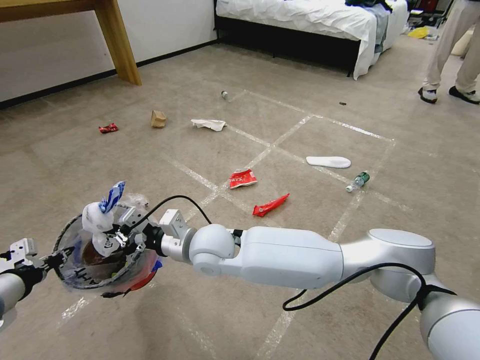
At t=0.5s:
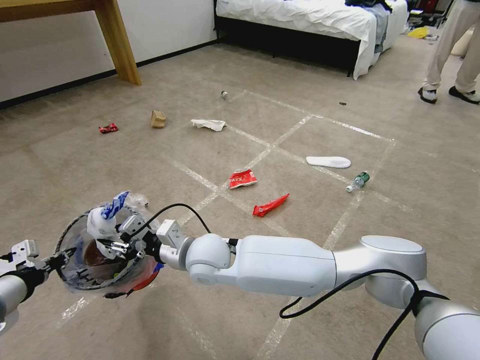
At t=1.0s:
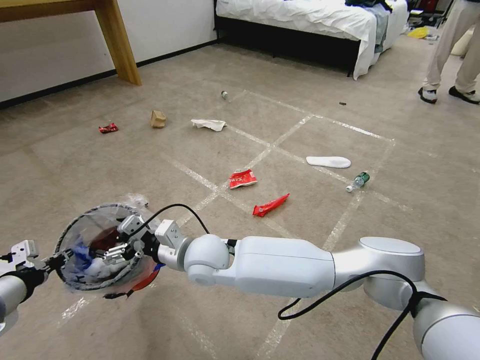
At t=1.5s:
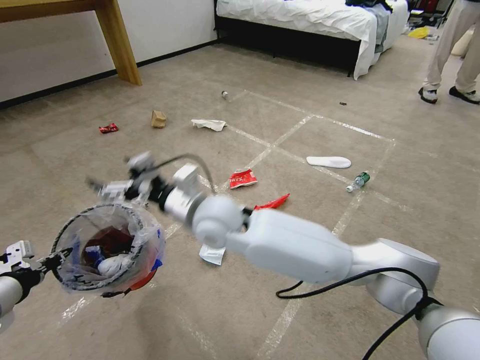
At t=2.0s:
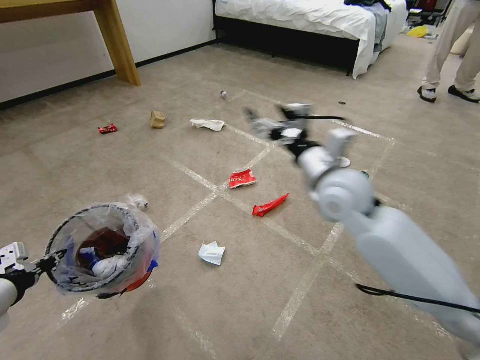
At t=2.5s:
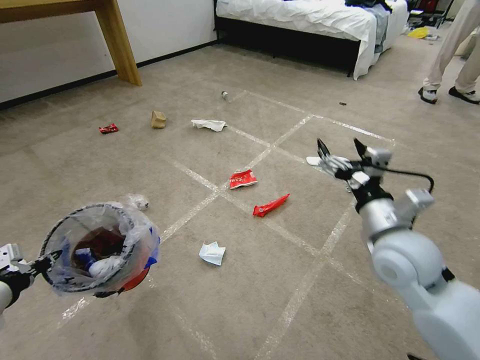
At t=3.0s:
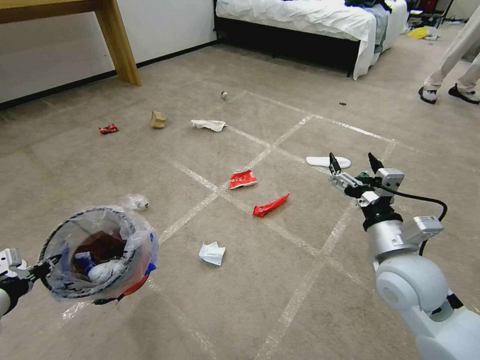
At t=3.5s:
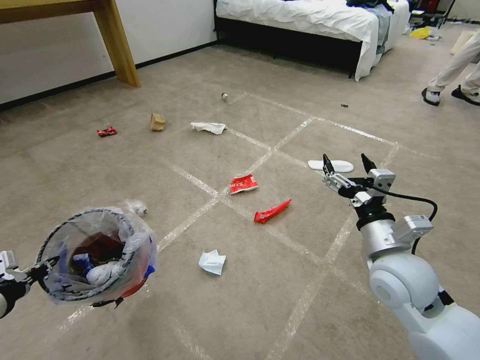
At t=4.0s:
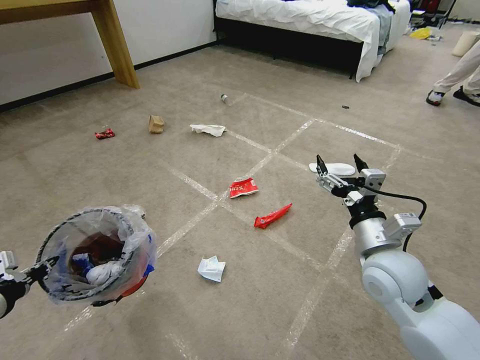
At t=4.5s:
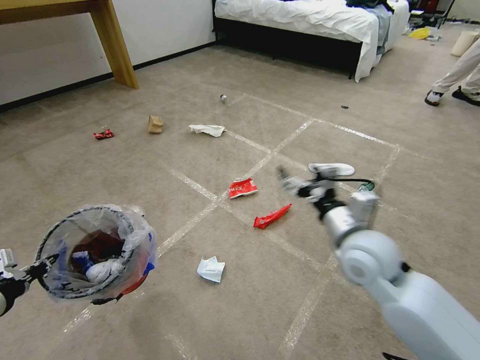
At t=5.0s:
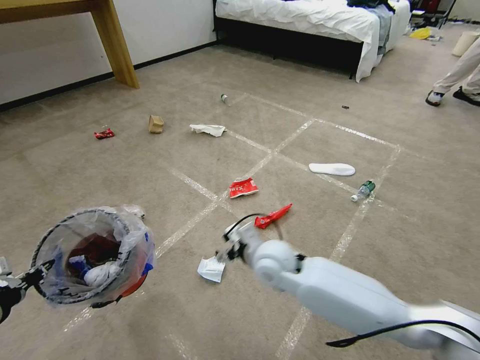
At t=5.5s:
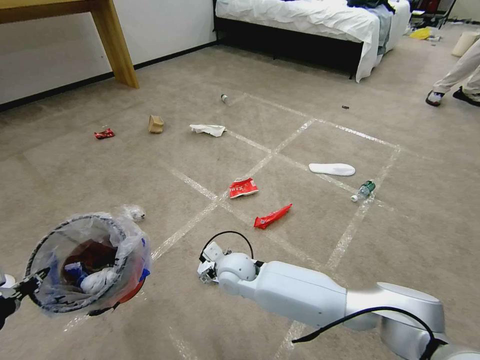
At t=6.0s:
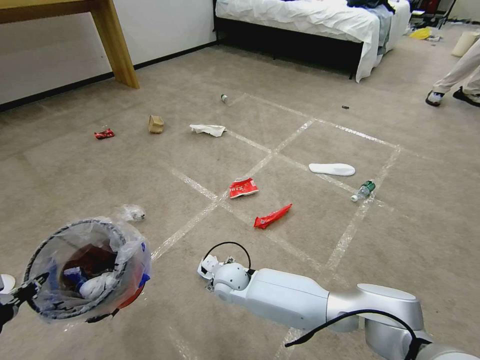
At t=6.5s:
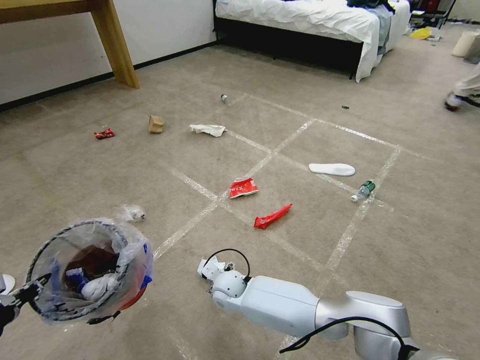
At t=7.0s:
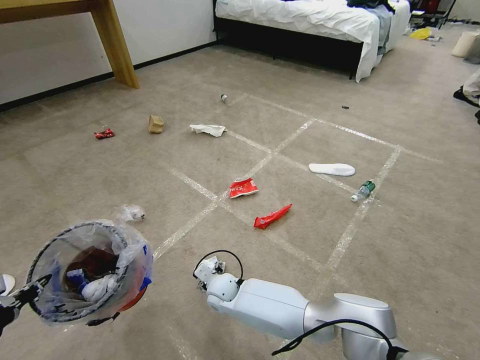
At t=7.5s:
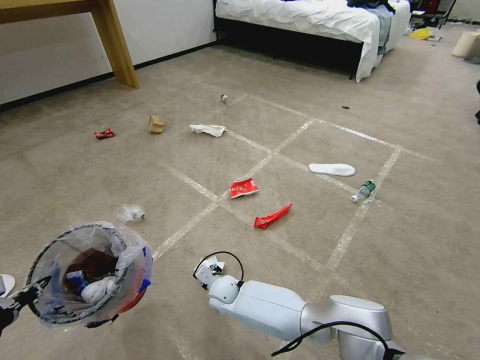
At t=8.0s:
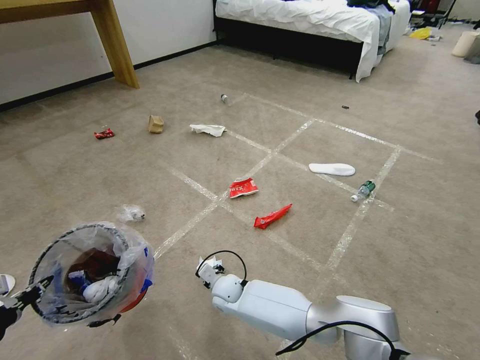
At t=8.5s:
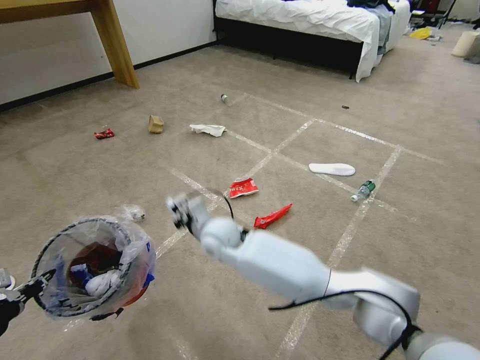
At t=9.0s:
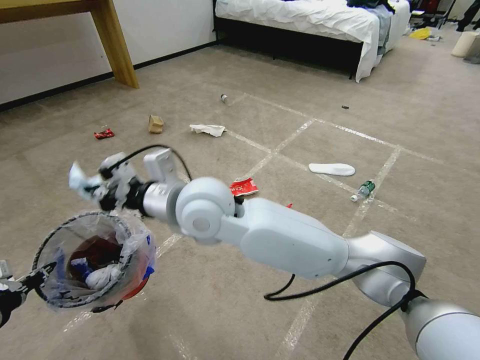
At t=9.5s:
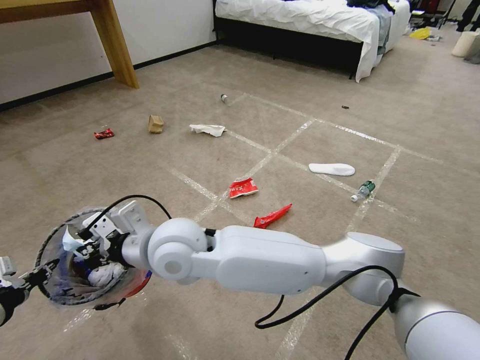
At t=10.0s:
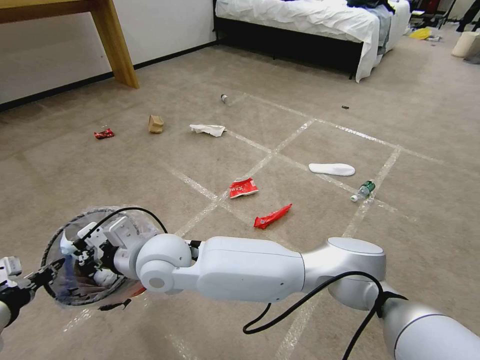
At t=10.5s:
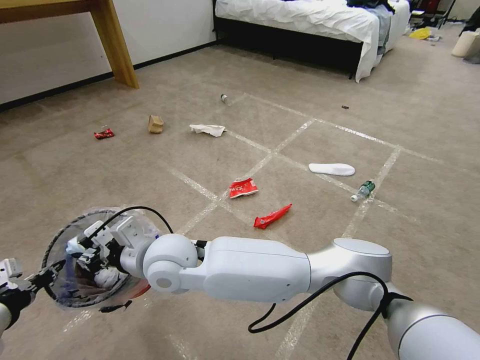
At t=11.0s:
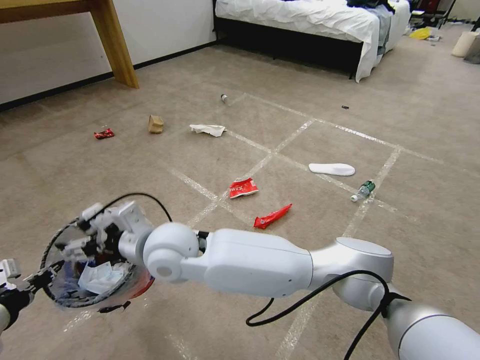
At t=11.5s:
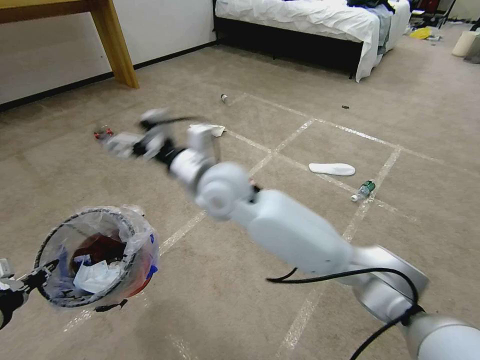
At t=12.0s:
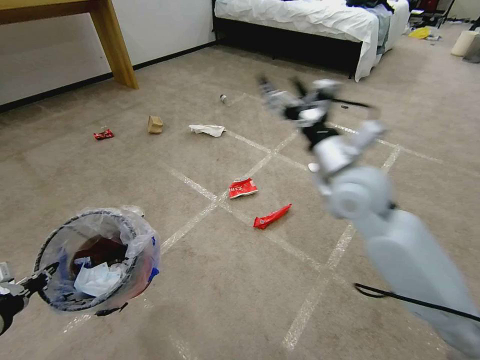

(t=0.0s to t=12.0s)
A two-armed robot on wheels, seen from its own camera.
Task of the whole recording: Pick up the trash bin and place the garbage on the floor into it.
t=0.0s - t=2.0s: The right gripper is displaced to the right and upward by roughly 30 cm, and opens up.
t=2.0s - t=4.0s: The right gripper goes roughly 15 cm backward, downward and to the right.
t=4.0s - t=6.0s: The right gripper is displaced to the left and downward by some 35 cm.
t=6.0s - t=8.0s: The right gripper moves downward, about 5 cm, and closes.
t=8.0s - t=10.0s: The right gripper shifts some 30 cm upward.
t=10.0s - t=12.0s: The right gripper travels to the right by roughly 35 cm, and opens.

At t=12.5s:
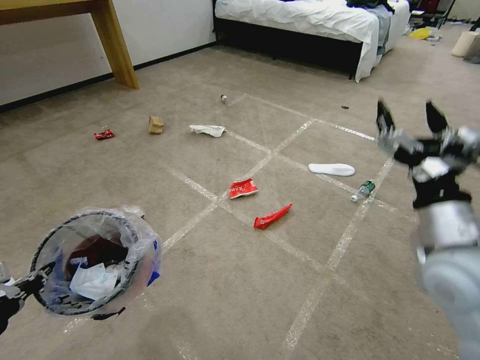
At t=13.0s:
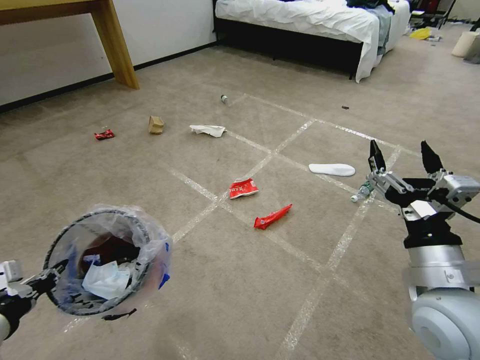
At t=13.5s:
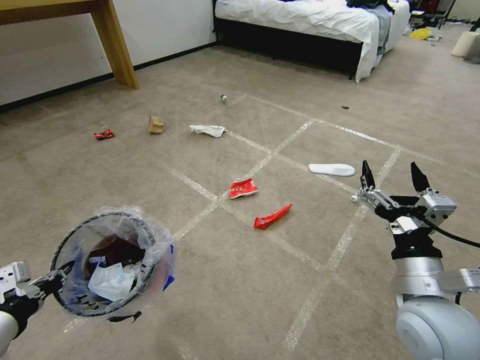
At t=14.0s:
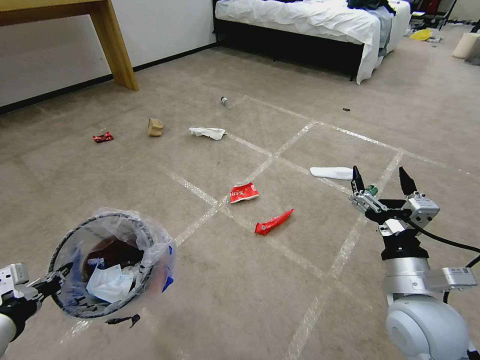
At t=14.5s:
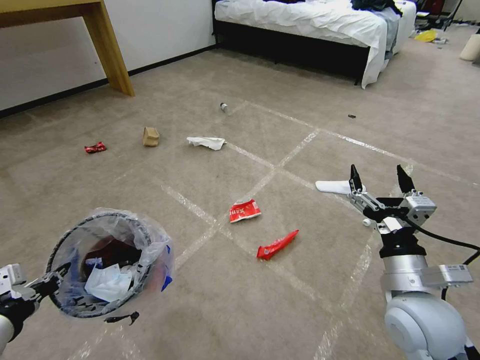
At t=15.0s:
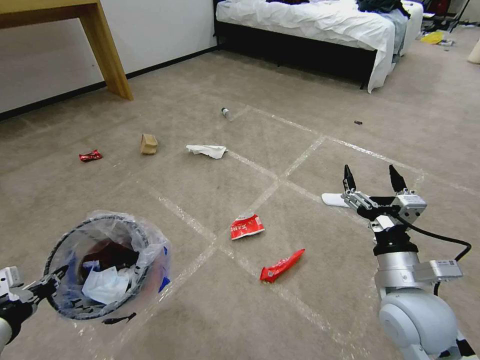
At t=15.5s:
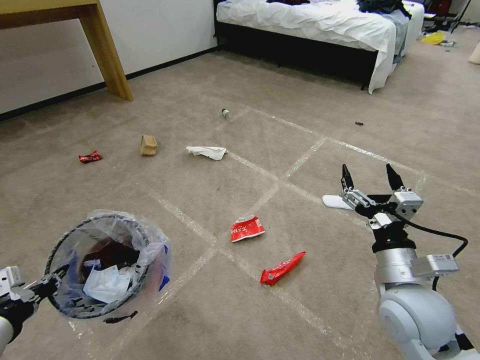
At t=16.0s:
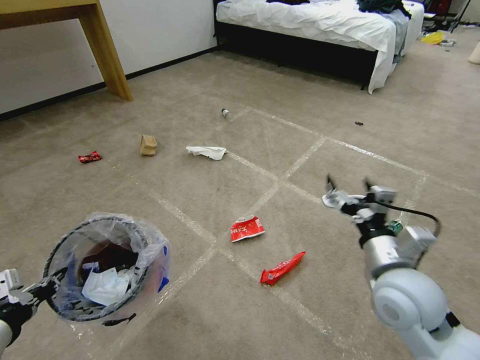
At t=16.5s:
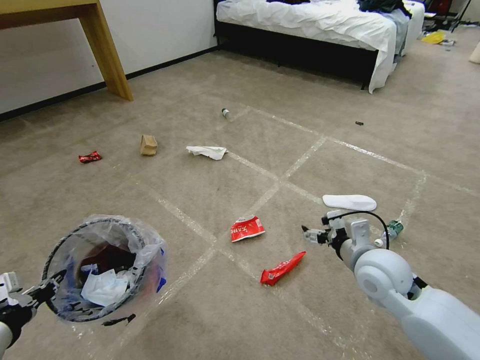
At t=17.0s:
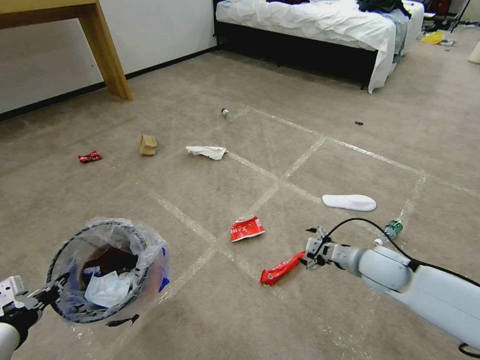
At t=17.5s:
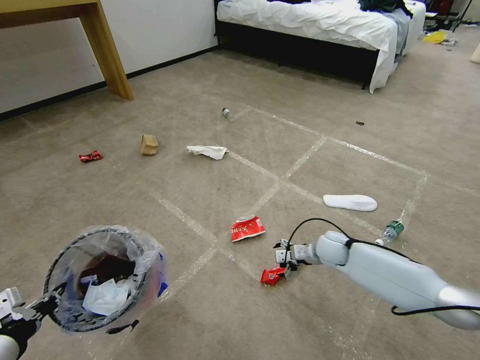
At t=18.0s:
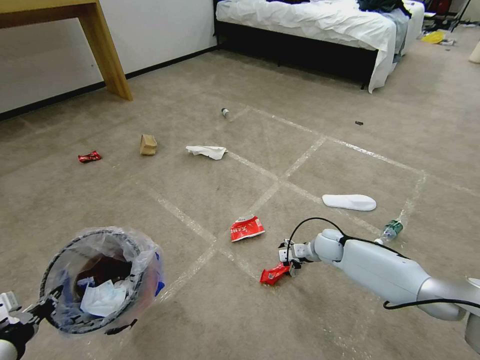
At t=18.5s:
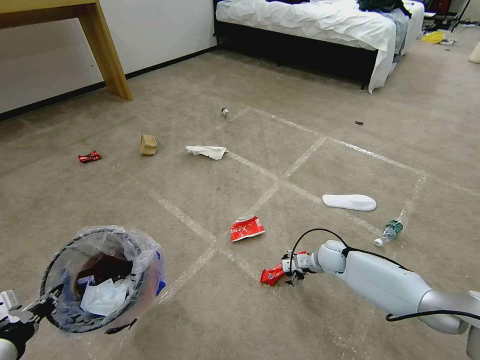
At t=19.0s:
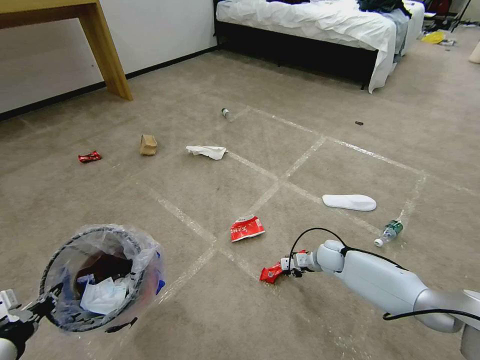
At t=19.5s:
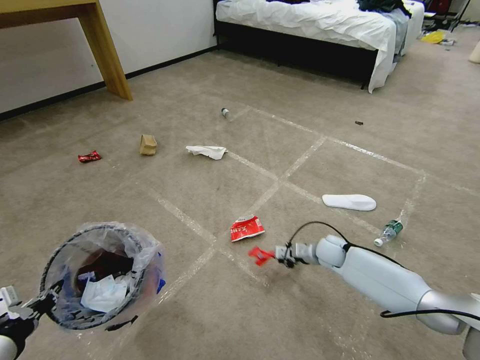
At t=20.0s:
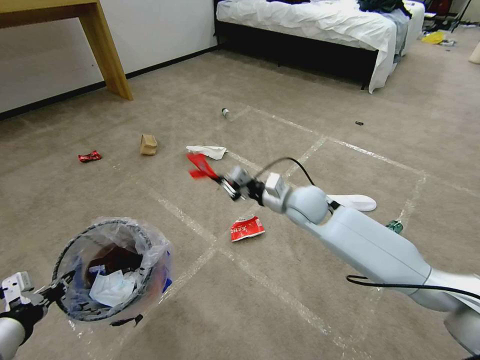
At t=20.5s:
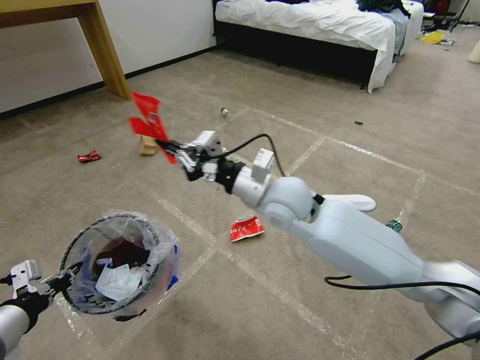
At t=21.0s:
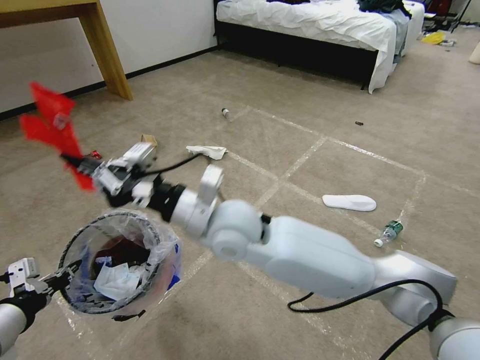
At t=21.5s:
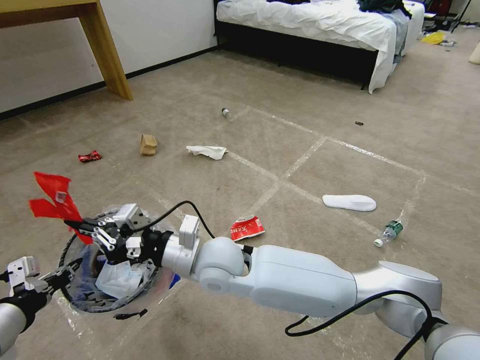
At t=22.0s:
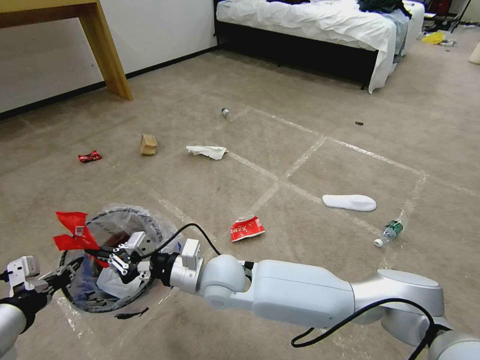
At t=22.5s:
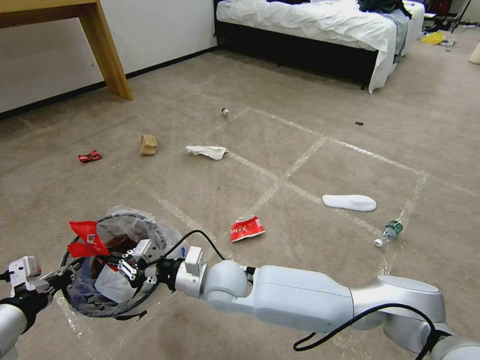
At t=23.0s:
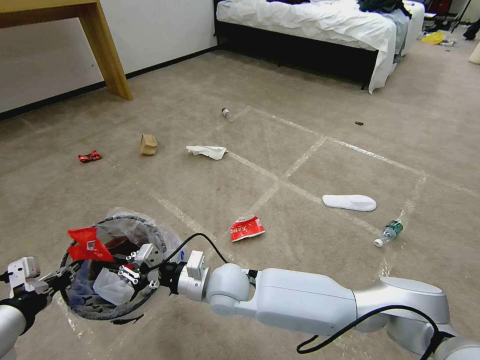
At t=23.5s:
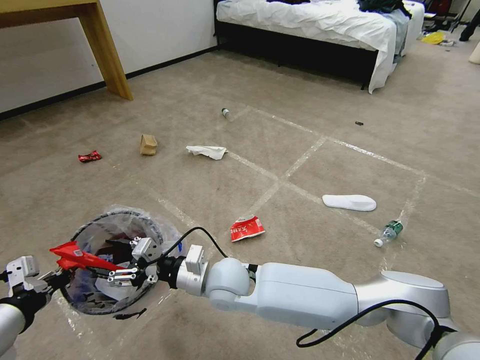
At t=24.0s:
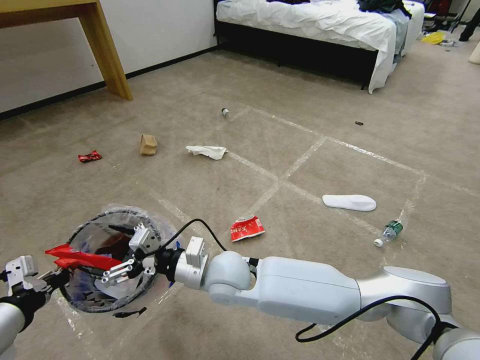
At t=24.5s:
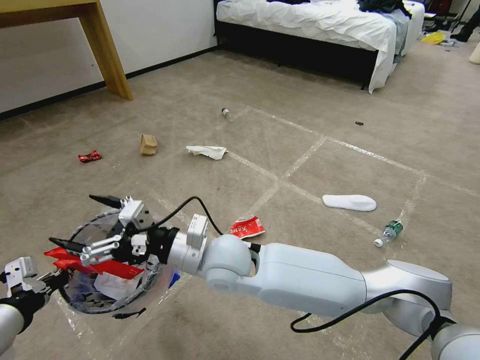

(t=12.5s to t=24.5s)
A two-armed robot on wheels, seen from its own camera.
Task of the whole recording: Pick up the trash bin and place the garbage on the floor into it.
t=12.5s - t=14.5s: The right gripper shifts approximately 10 cm downward.
t=14.5s - t=16.5s: The right gripper goes some 10 cm forward.
t=16.5s - t=18.5s: The right gripper moves downward and forward, about 25 cm.
t=18.5s - t=20.5s: The left gripper shifts by roughly 5 cm. The right gripper moves upward and to the left, approximately 35 cm, and closes up.
t=20.5s - t=22.5s: The right gripper goes about 25 cm downward, to the left and backward.
t=22.5s - t=24.5s: The right gripper travels upward by roughly 10 cm, and opens its fingers.

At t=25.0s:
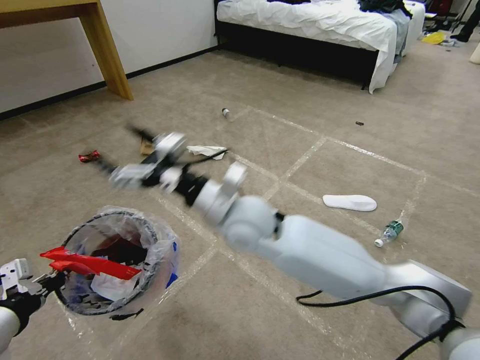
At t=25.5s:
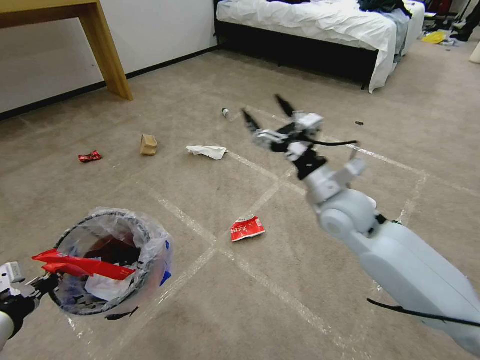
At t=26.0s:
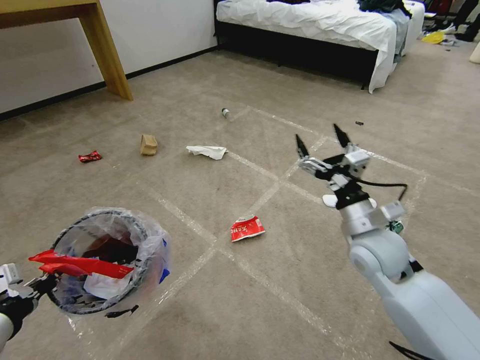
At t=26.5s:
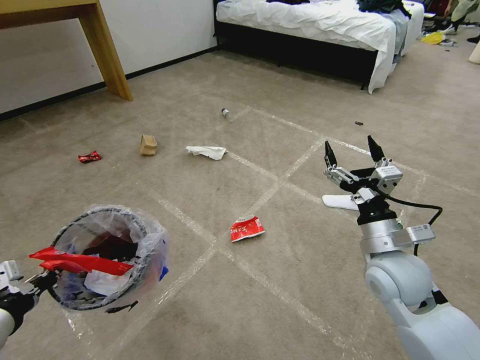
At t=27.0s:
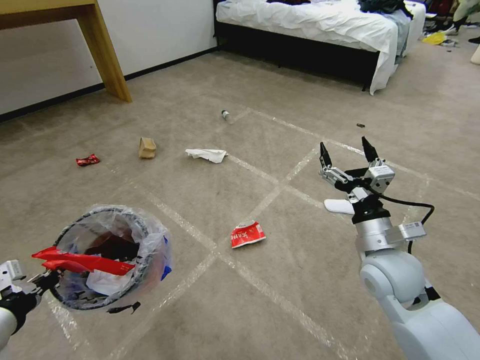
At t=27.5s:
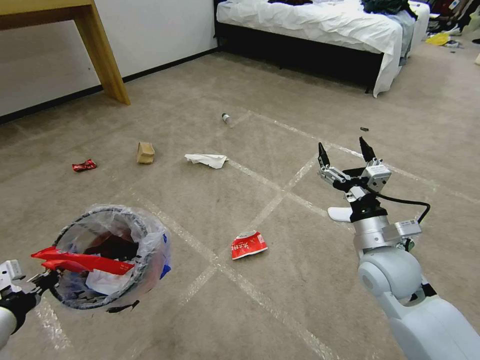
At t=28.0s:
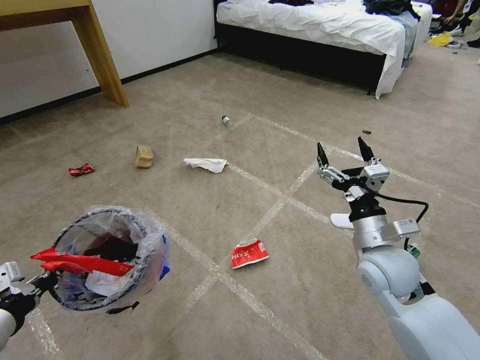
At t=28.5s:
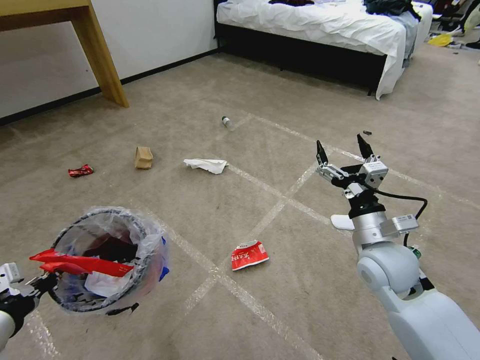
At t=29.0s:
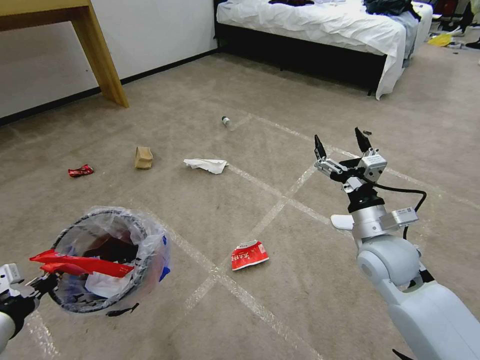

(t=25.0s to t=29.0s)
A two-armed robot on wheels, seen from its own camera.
Task of the whole recording: Pick up the trash bin and place the garbage on the floor into it.
t=25.0s - t=27.0s: The right gripper moves to the right, approximately 25 cm.
t=27.0s - t=29.0s: The grippers make only small movements.
